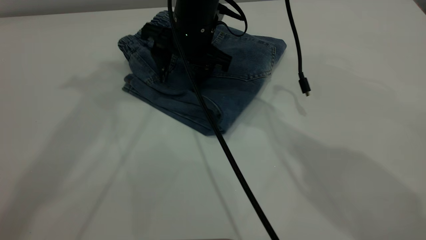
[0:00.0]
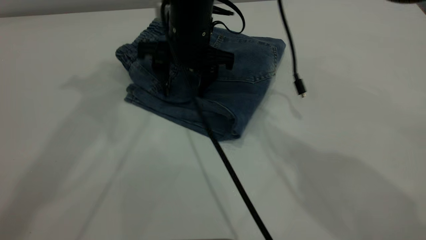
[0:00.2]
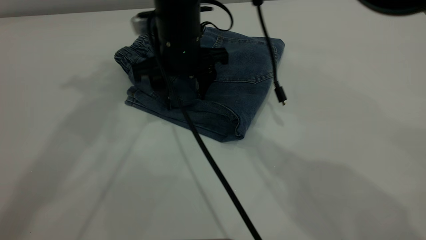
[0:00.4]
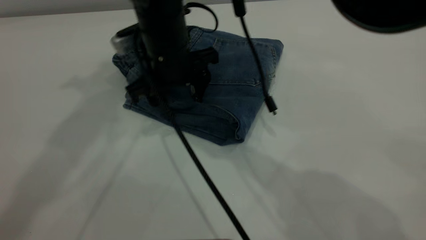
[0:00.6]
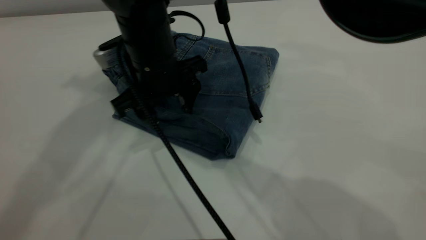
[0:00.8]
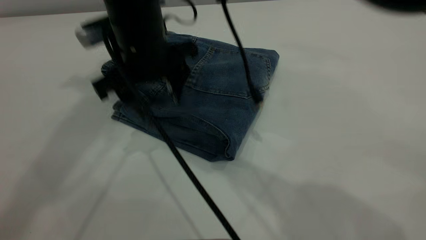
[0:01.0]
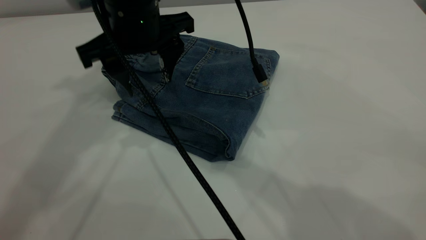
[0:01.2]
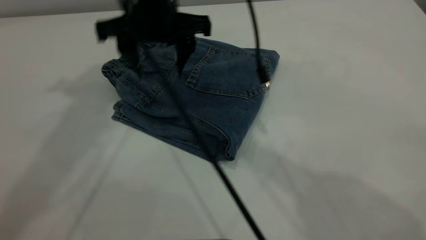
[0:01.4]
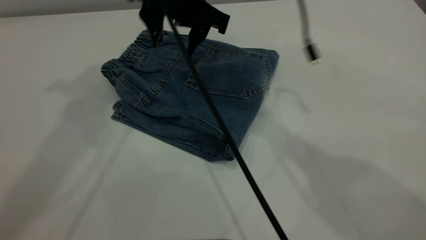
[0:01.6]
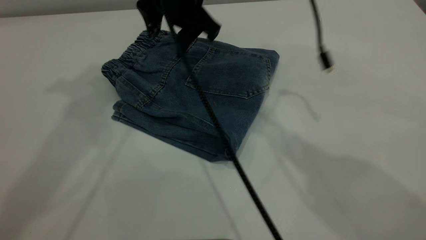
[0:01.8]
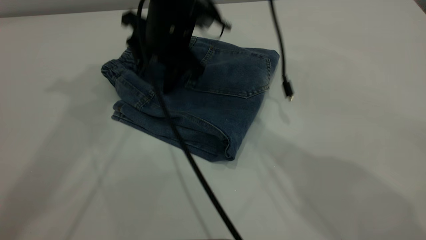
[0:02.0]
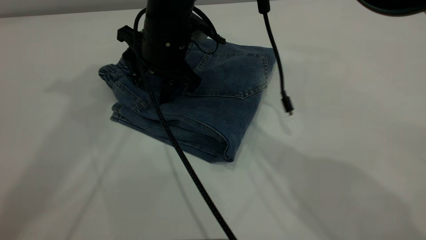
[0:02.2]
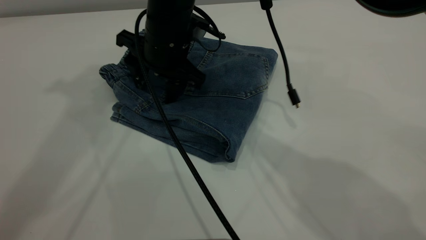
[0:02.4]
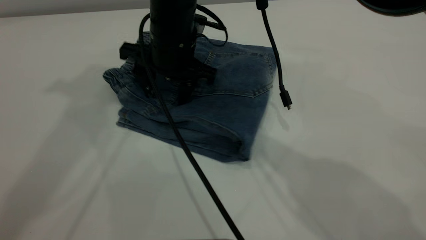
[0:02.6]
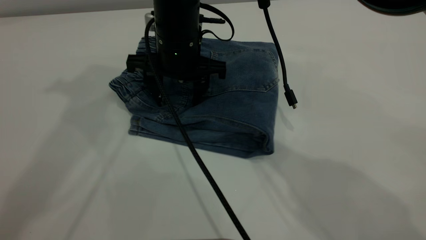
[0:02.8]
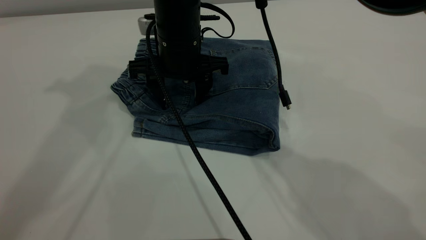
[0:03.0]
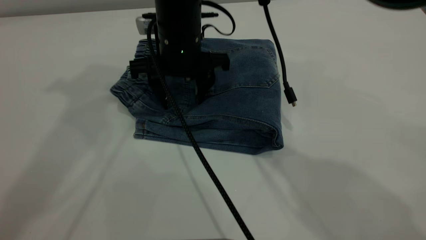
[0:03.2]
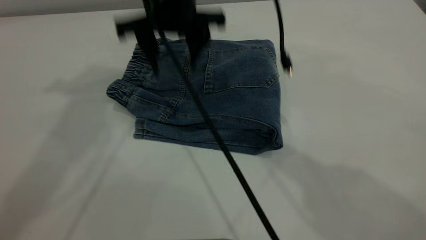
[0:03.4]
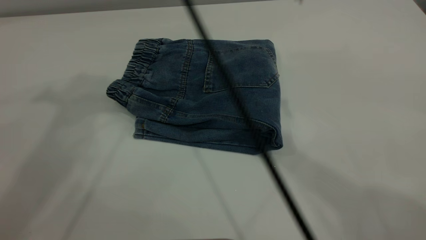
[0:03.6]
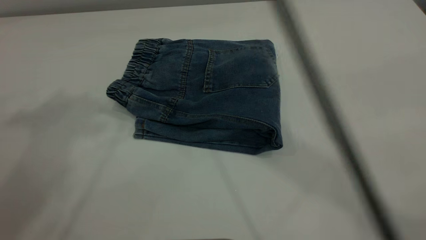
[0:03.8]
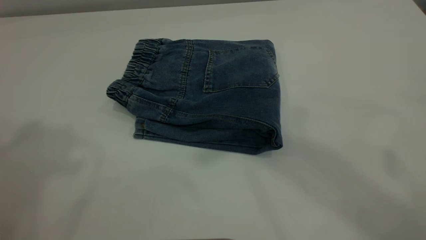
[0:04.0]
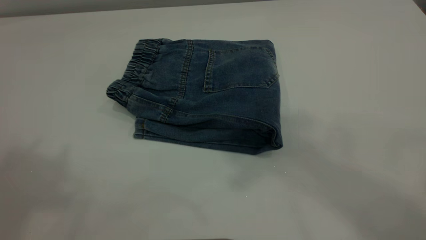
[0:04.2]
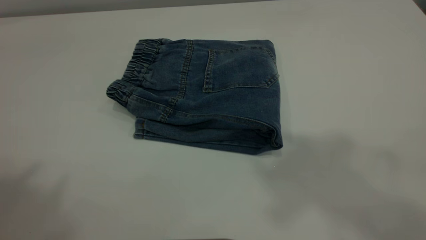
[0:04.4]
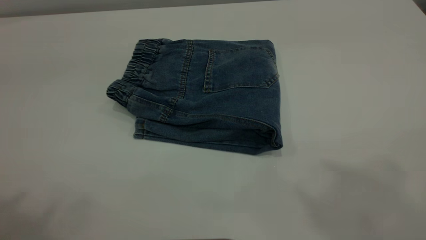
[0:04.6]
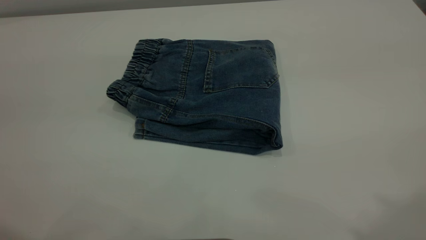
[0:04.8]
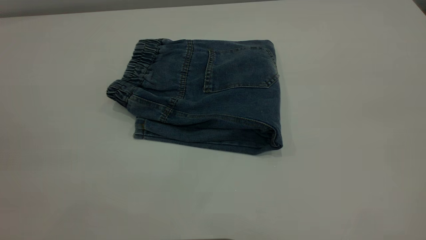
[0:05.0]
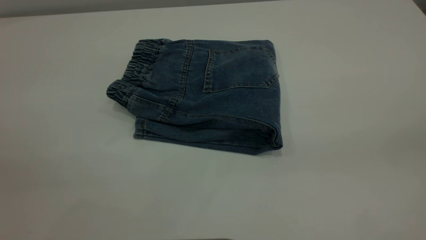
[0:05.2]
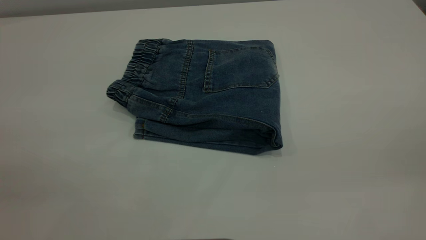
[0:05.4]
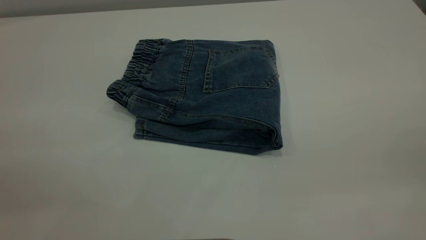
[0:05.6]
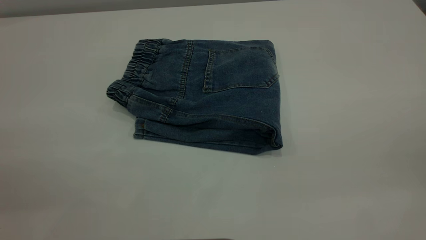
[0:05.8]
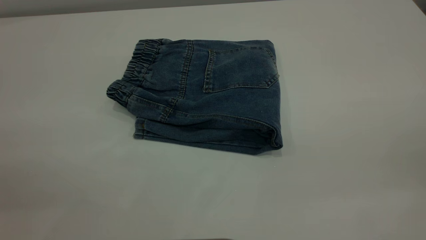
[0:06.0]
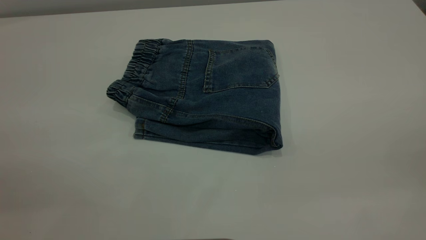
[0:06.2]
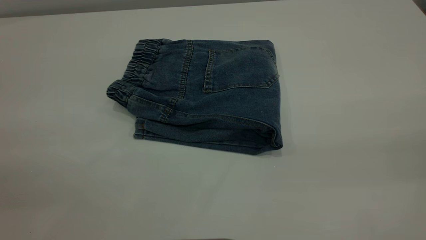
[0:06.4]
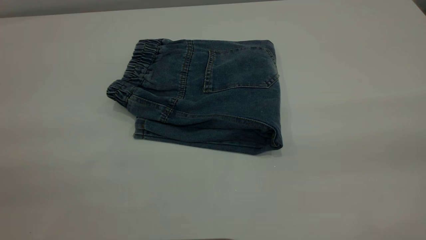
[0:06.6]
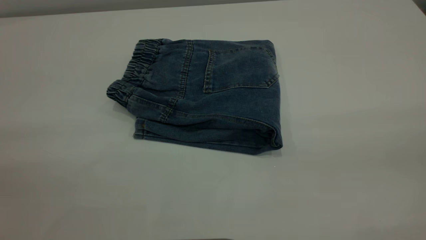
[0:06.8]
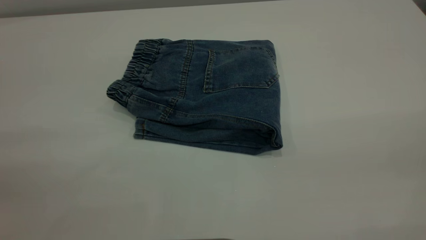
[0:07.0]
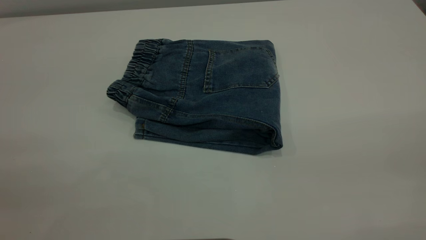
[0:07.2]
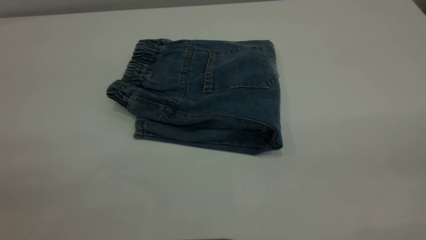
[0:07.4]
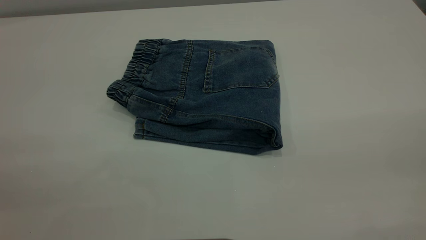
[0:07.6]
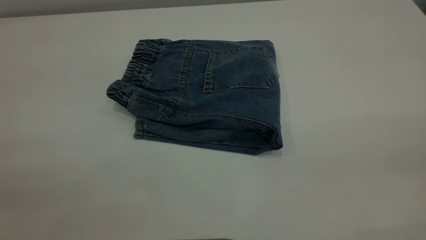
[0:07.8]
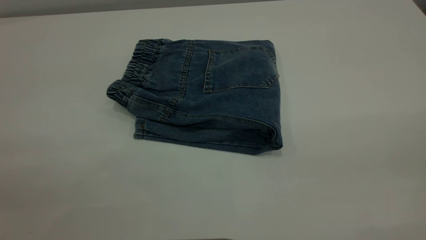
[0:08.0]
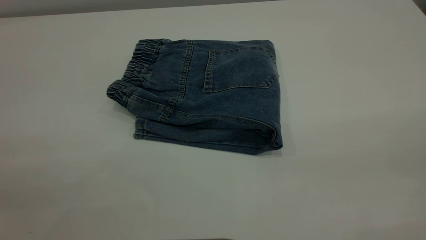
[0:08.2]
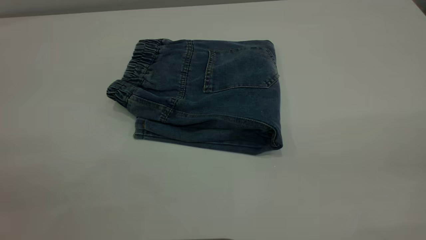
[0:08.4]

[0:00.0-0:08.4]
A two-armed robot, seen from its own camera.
0:00.0 to 0:01.4: The right gripper shifts some 5 cm upward.
0:01.4 to 0:02.8: The right gripper shifts roughly 5 cm downward.
0:02.8 to 0:04.2: The left gripper travels backward and upward by about 20 cm. The right gripper heads upward, covering some 50 cm.
0:07.0 to 0:08.4: Both grippers stay about where they are.
